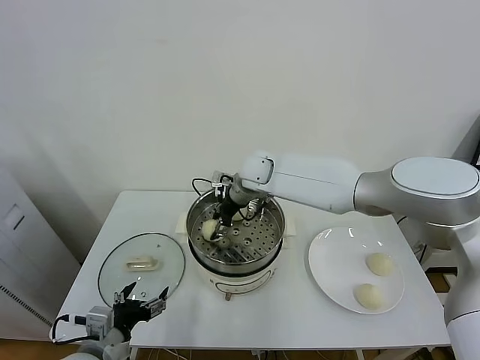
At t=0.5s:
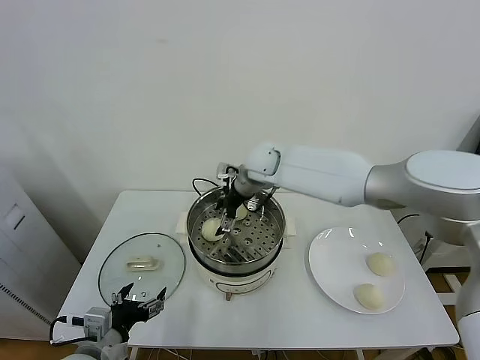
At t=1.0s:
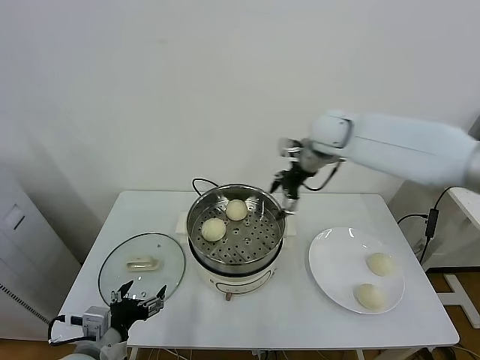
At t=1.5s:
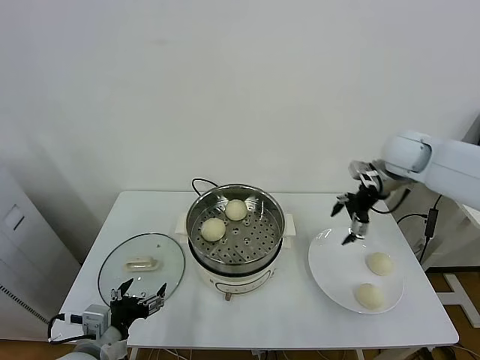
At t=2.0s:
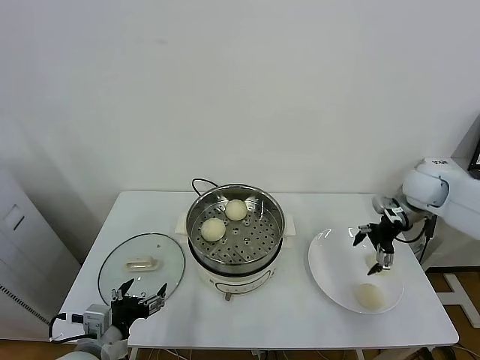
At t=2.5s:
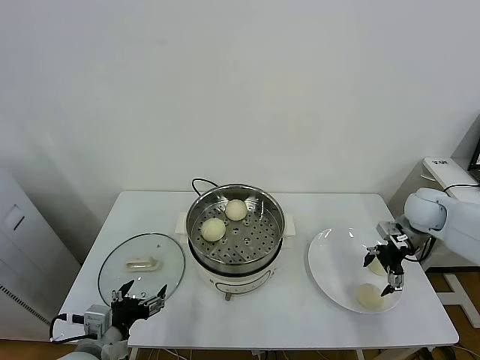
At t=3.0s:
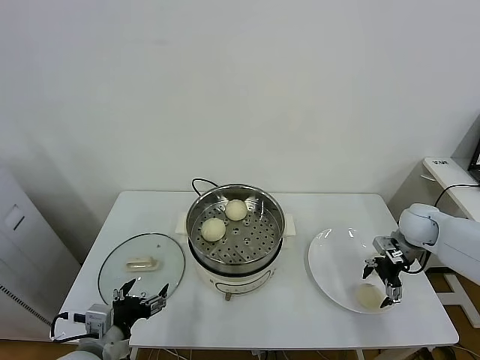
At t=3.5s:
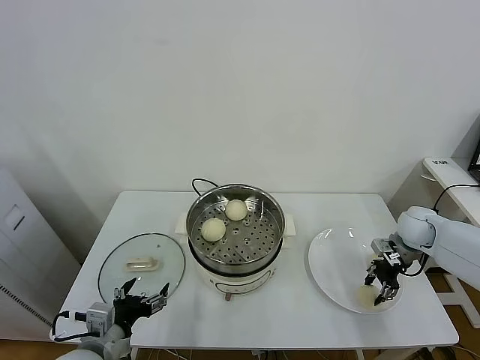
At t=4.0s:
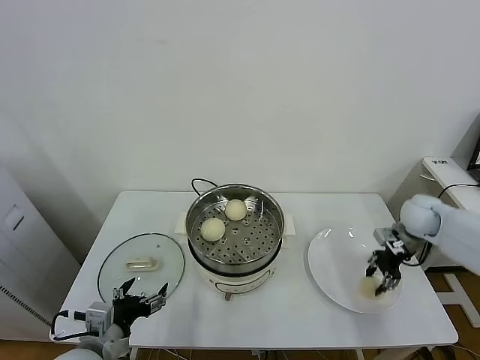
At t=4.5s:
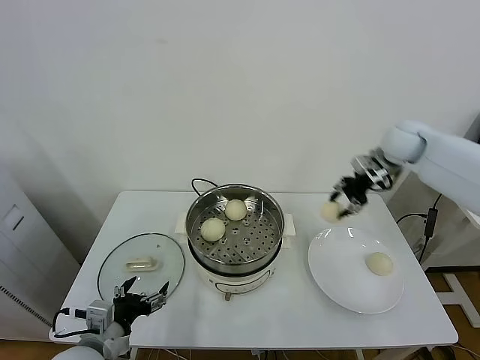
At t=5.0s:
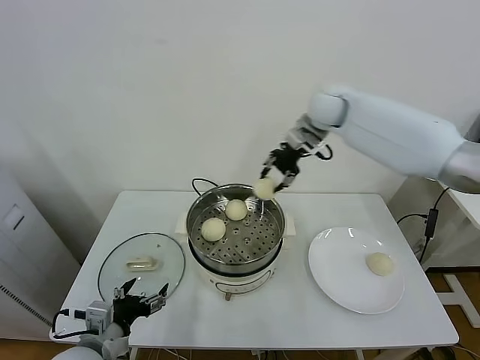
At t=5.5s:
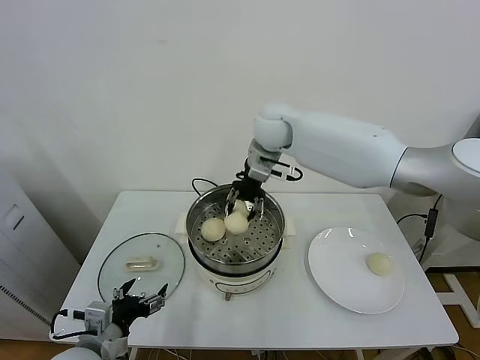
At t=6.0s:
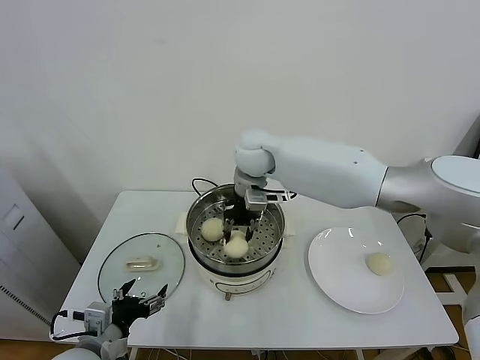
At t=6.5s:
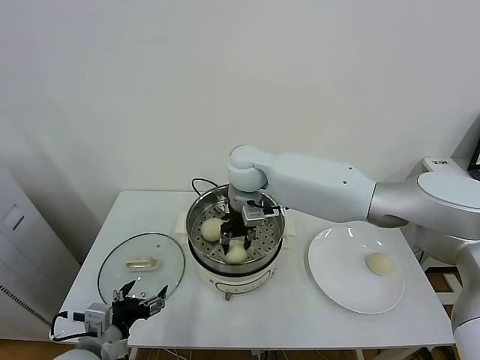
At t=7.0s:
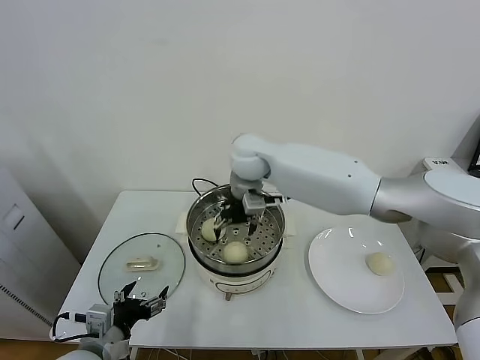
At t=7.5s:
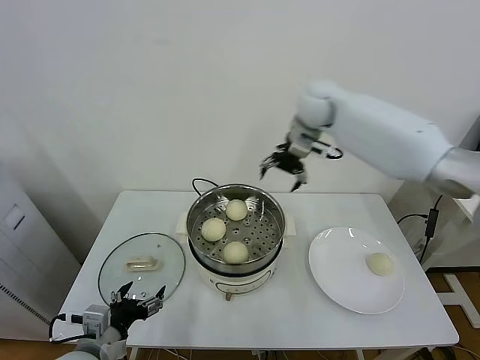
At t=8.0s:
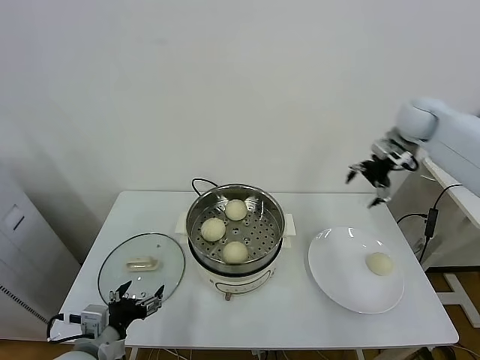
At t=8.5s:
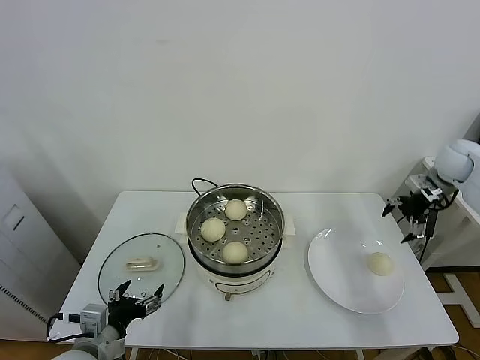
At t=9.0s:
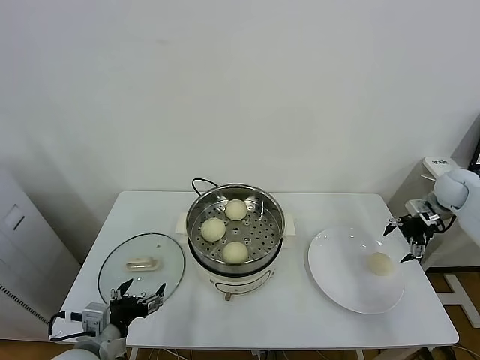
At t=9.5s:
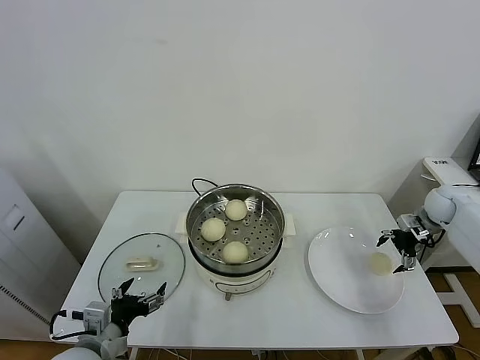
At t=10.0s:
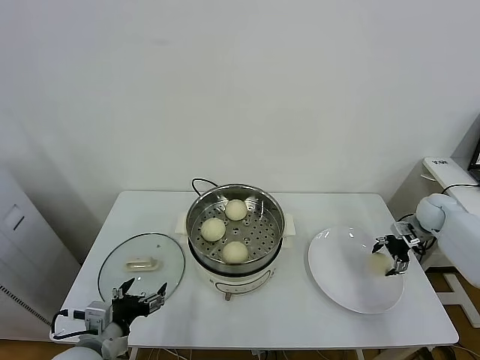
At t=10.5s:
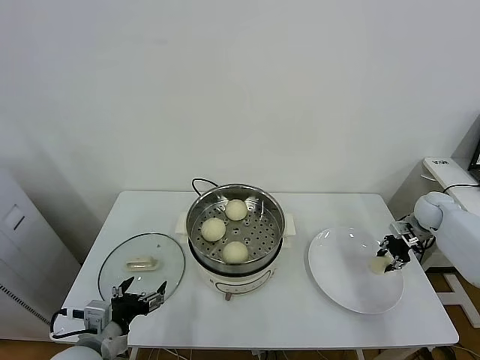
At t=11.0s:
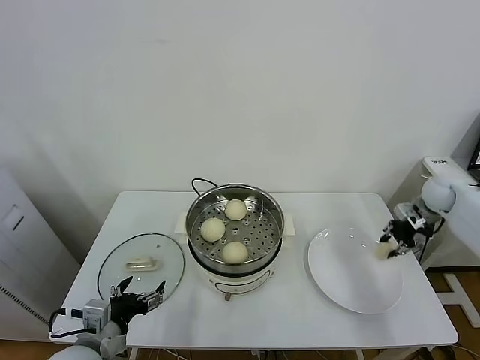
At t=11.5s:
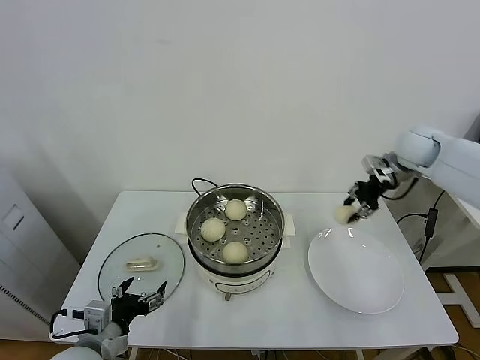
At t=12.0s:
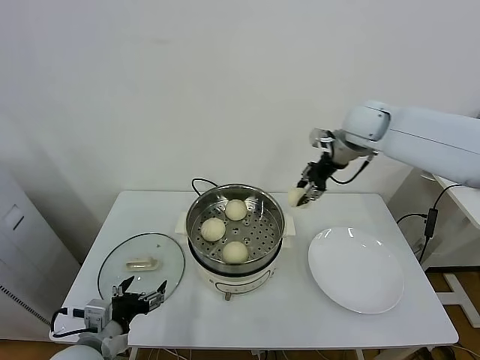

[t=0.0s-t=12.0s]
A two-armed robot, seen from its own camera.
Task of the whole recording: take steamed baozi put them in steamer.
Step, t=0.5s to t=3.0s: Grasp the baozi in the plate with right gripper.
Step, t=3.5s to t=6.5s: Place the baozi on the steamer with right gripper.
Step, t=7.0s to t=10.0s: Grasp the baozi in the plate with right gripper.
t=0.0s to t=2.0s: The right gripper goes approximately 40 cm to the right, and opens up.
t=2.0s to t=4.0s: The right gripper moves downward, roughly 5 cm, and closes.
t=4.0s to t=6.0s: The right gripper is displaced to the left by roughly 40 cm.
t=6.0s to t=8.0s: The right gripper is displaced to the right by some 40 cm, and opens.
t=8.0s to t=10.0s: The right gripper travels downward and to the right by approximately 25 cm.
t=10.0s to t=12.0s: The right gripper shifts about 35 cm to the left and upward, and closes its fingers.

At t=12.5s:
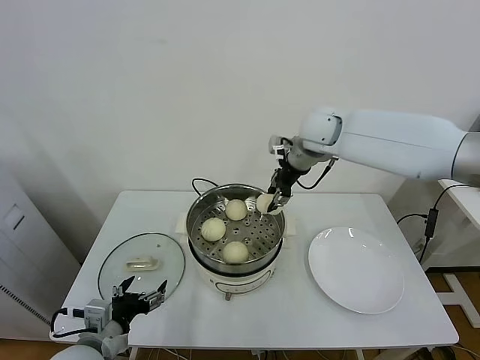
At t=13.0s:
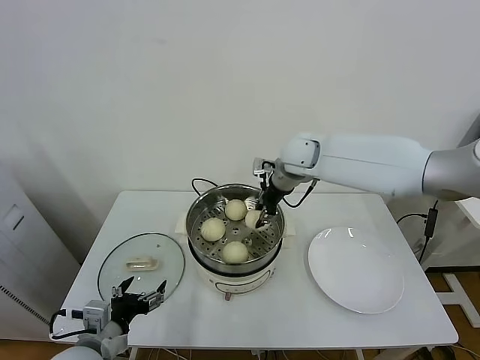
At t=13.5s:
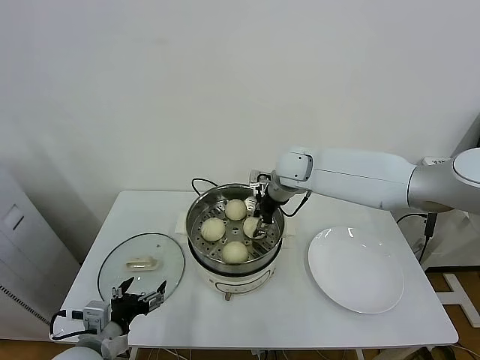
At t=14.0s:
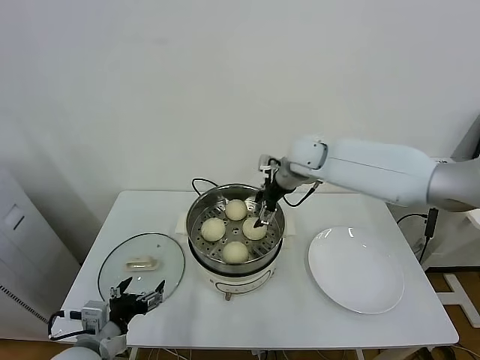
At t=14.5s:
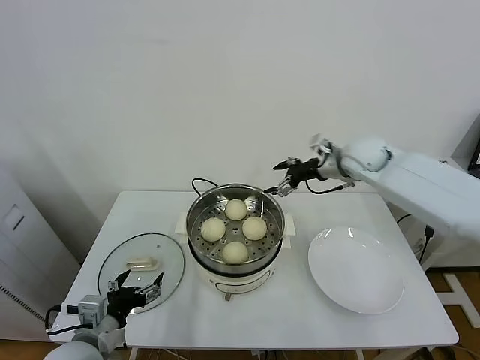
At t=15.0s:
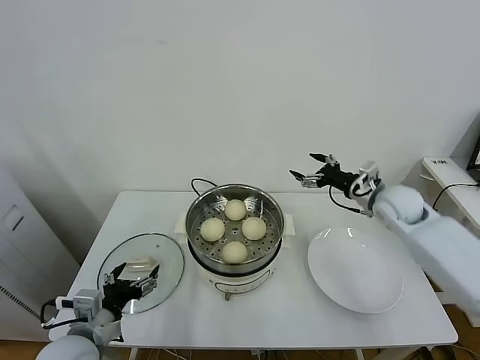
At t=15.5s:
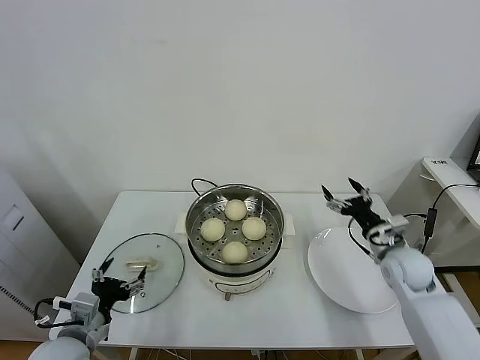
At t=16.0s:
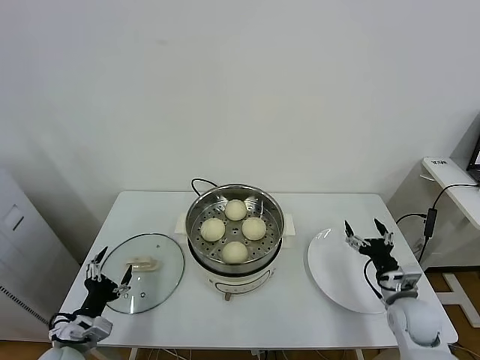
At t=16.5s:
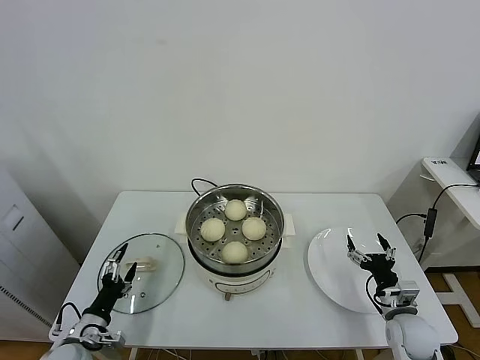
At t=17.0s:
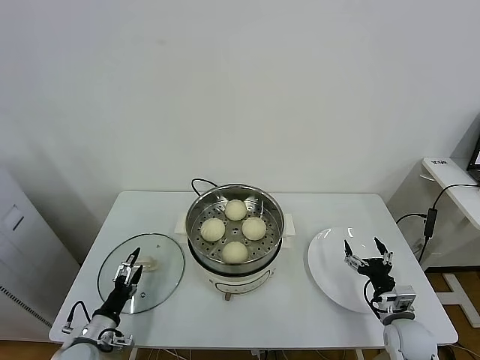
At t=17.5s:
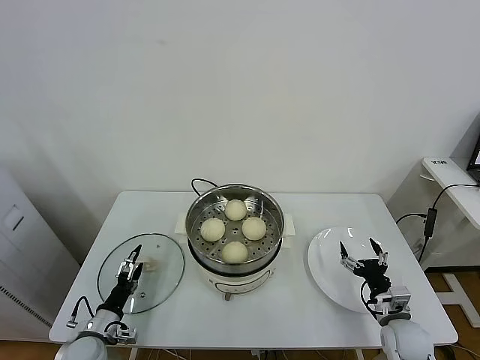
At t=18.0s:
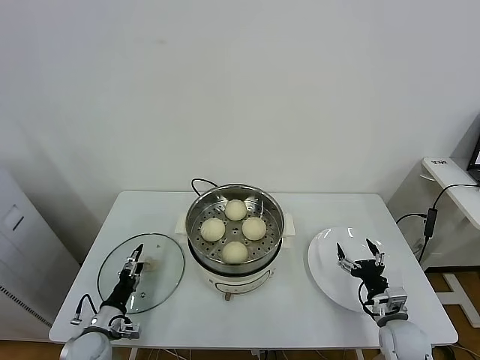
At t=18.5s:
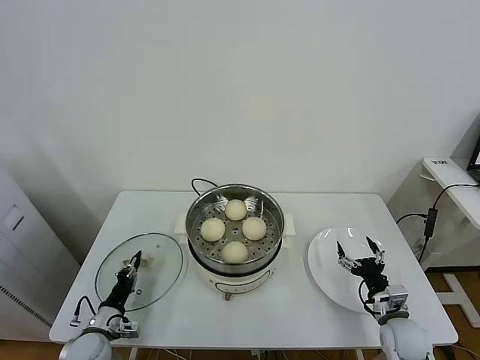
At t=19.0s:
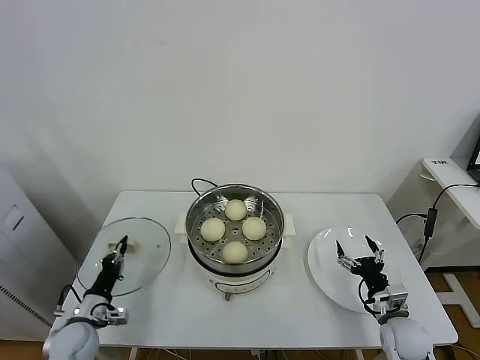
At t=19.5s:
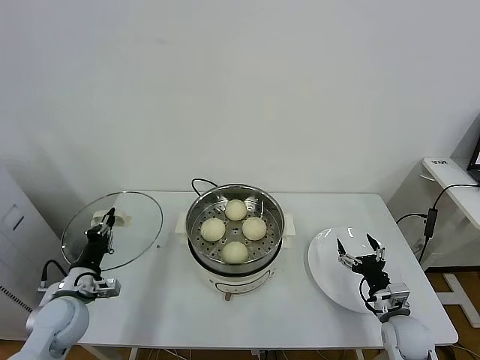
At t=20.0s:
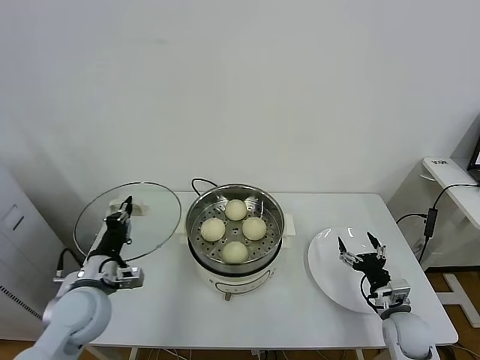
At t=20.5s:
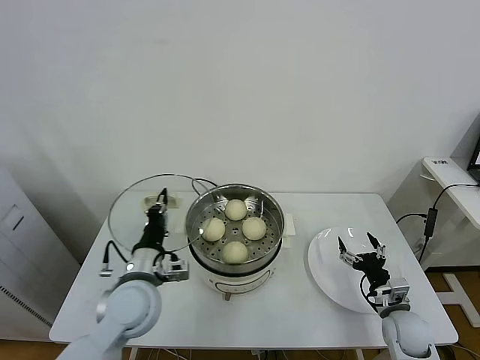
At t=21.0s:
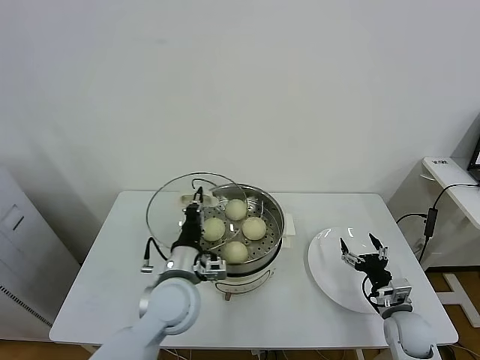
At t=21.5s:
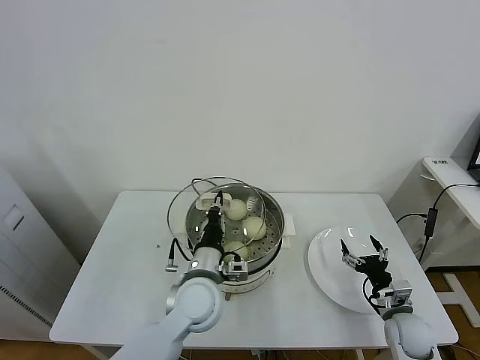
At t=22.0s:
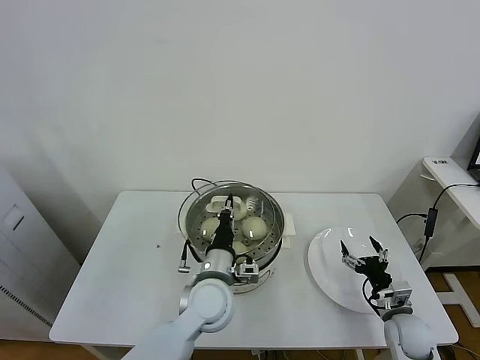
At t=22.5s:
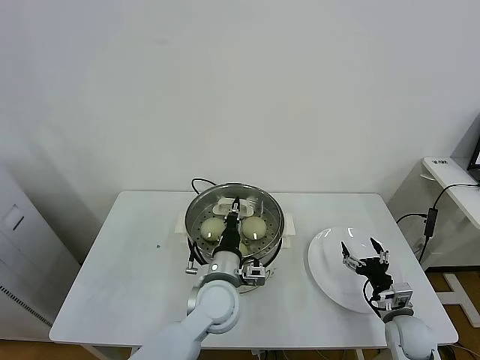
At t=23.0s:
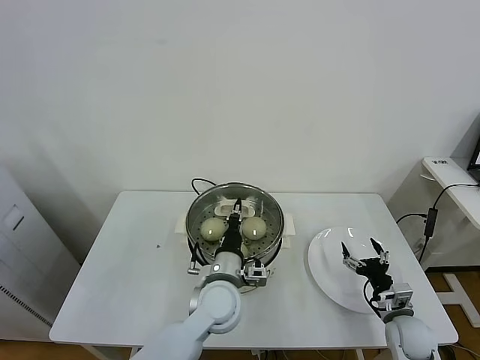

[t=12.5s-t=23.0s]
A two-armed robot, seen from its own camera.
Task of the whole recording: take steamed baozi put them in steamer.
Step, t=14.5s to t=18.5s: Grasp the pot lid with left gripper.
t=12.5s to t=14.5s: The right gripper heads to the right and downward, covering approximately 10 cm, and opens its fingers.
t=14.5s to t=16.5s: The left gripper travels downward and to the left by about 15 cm, while the right gripper heads downward and backward, covering roughly 40 cm.
t=16.5s to t=19.0s: The left gripper closes its fingers.
t=19.0s to t=21.0s: The left gripper travels to the right and upward by about 30 cm.
t=21.0s to t=23.0s: The left gripper is displaced to the right by approximately 10 cm.

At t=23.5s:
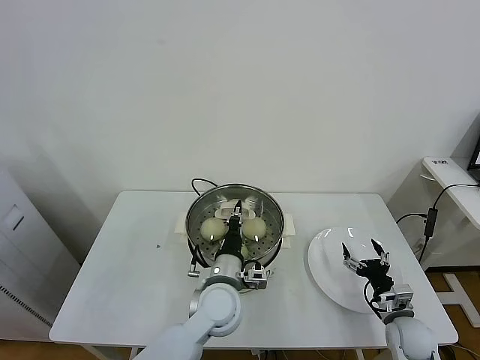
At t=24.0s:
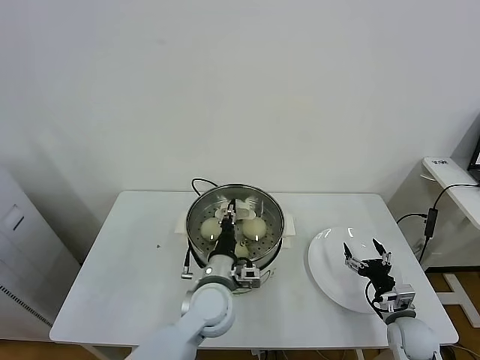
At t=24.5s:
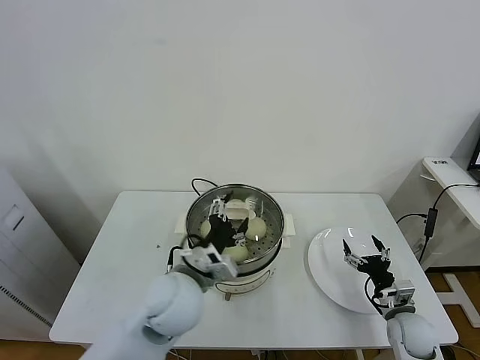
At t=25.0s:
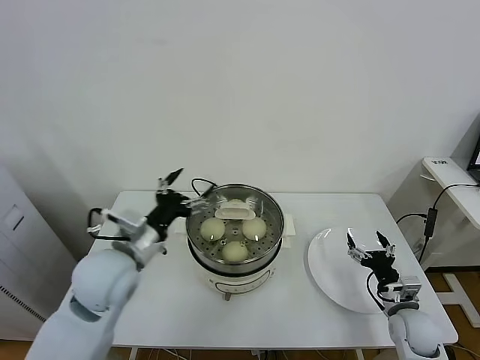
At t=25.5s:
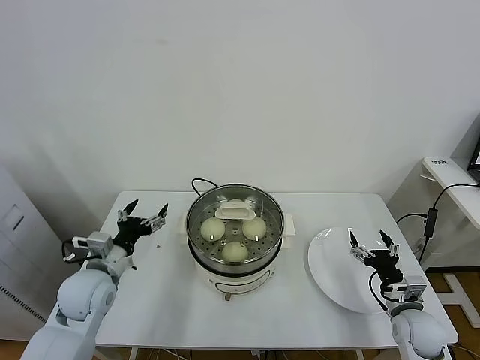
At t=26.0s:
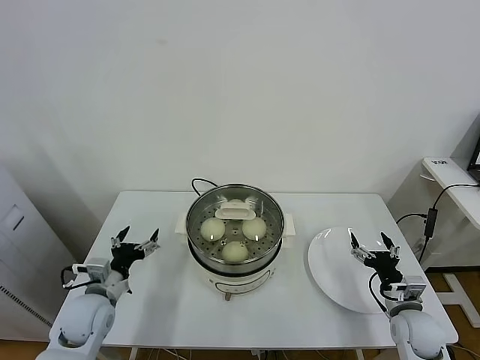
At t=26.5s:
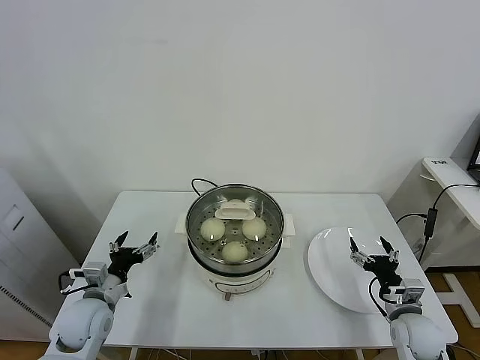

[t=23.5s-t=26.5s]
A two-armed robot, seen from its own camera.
Task of the whole recording: take steamed baozi put them in steamer.
t=23.5s to t=25.0s: The left gripper goes some 20 cm to the left and upward, and opens.
t=25.0s to t=26.5s: The left gripper moves downward and to the left, roughly 20 cm.
